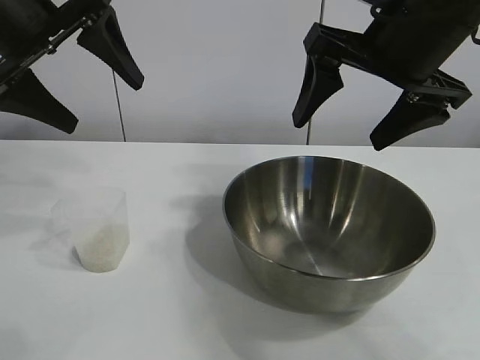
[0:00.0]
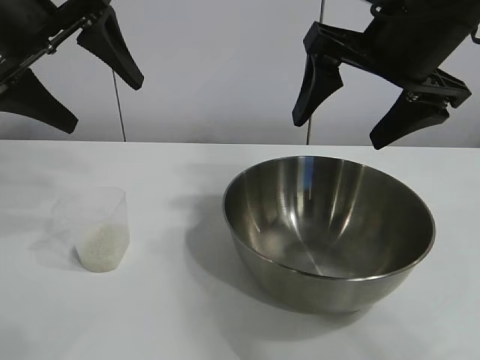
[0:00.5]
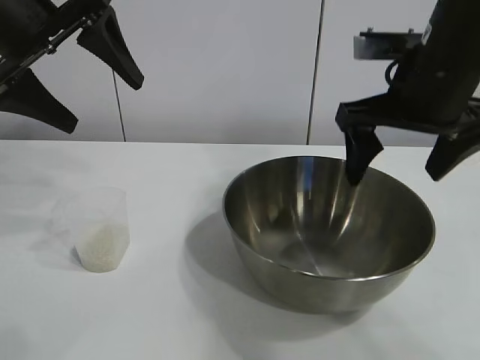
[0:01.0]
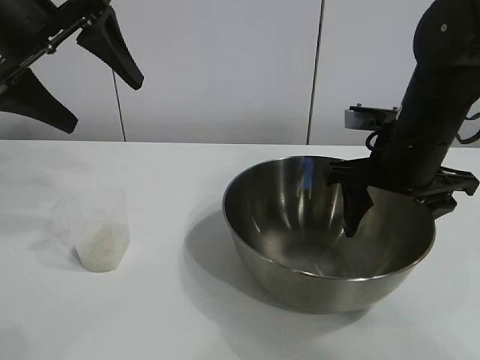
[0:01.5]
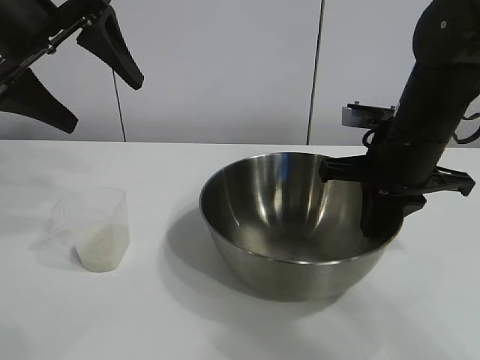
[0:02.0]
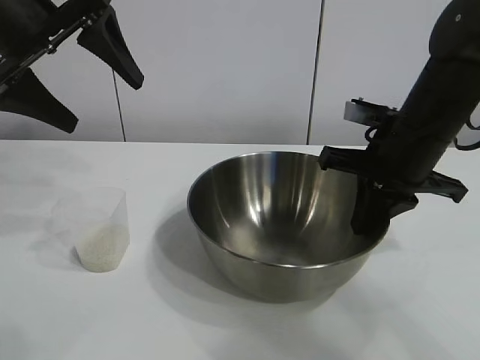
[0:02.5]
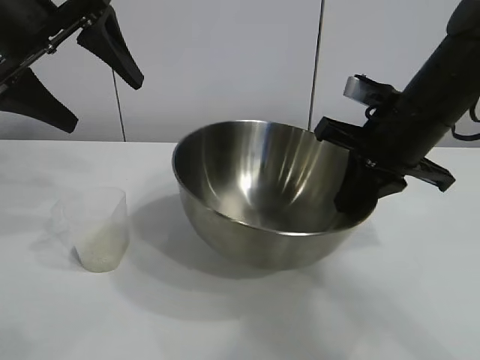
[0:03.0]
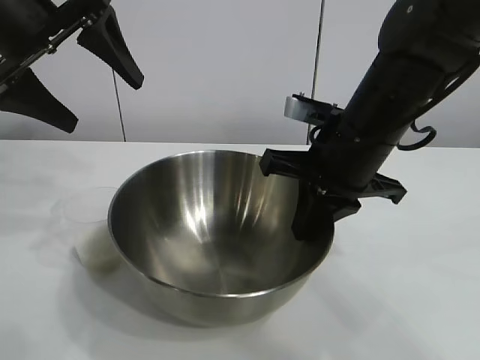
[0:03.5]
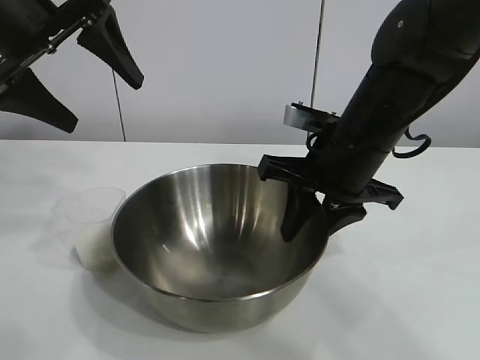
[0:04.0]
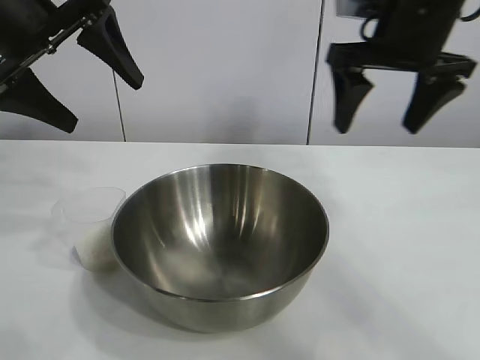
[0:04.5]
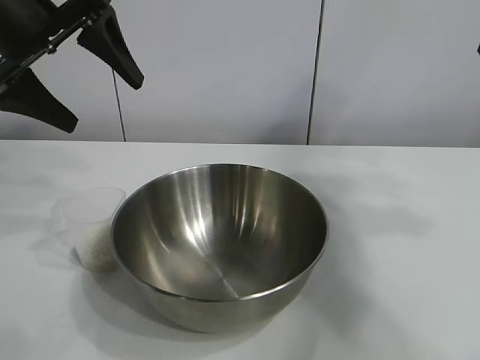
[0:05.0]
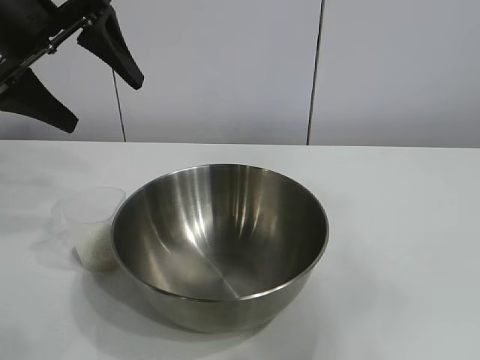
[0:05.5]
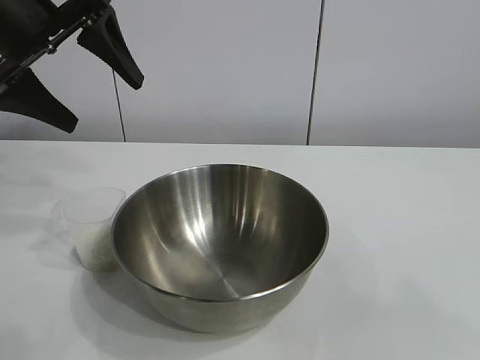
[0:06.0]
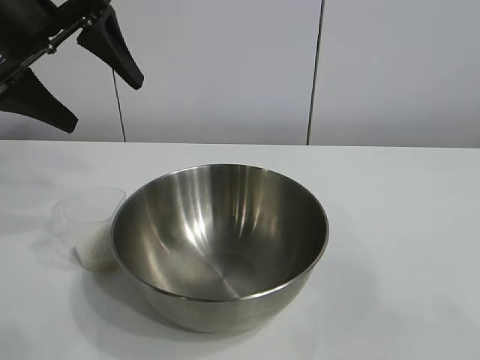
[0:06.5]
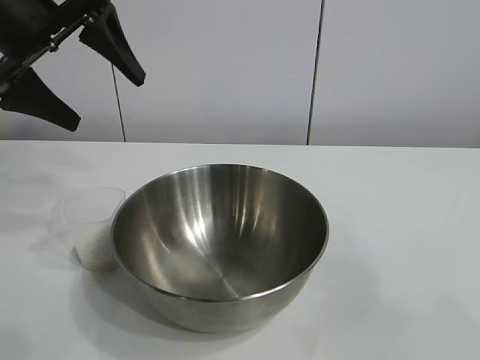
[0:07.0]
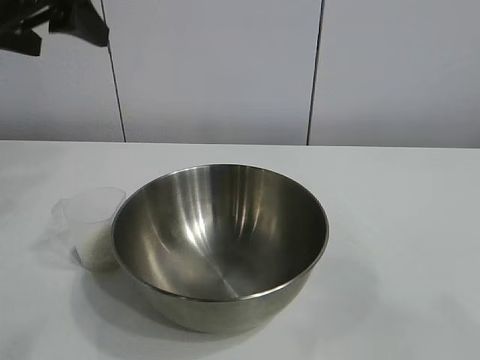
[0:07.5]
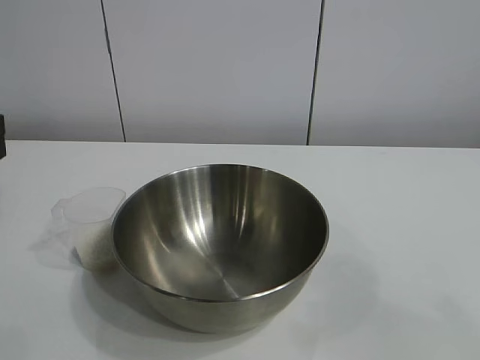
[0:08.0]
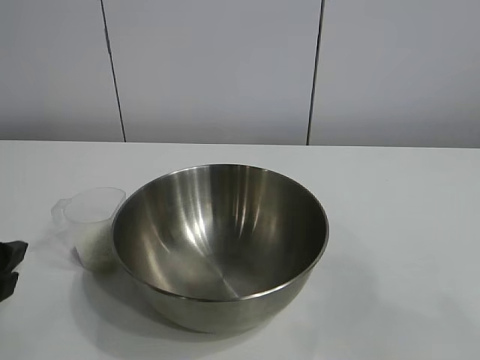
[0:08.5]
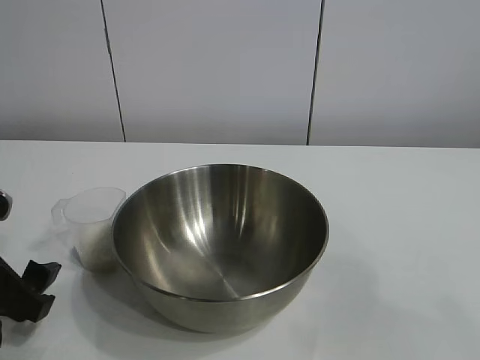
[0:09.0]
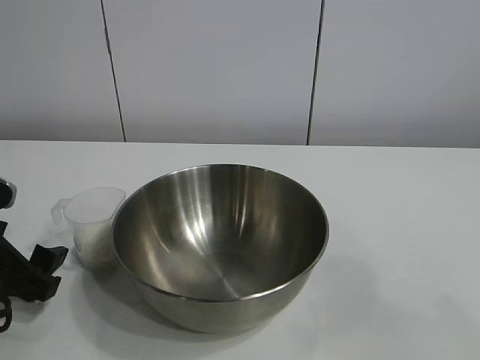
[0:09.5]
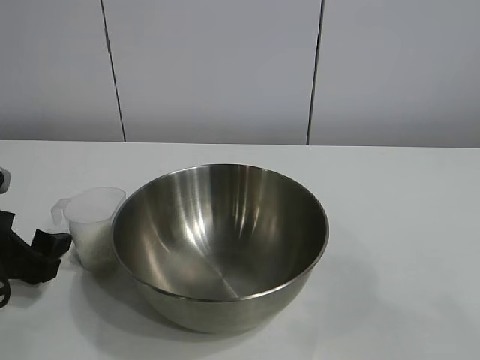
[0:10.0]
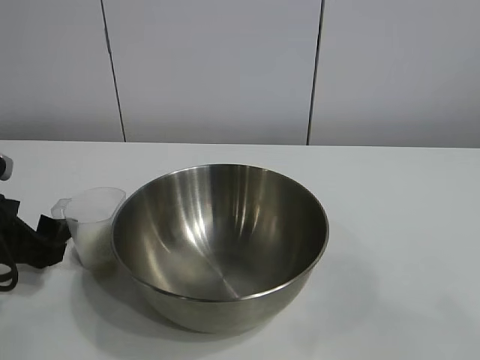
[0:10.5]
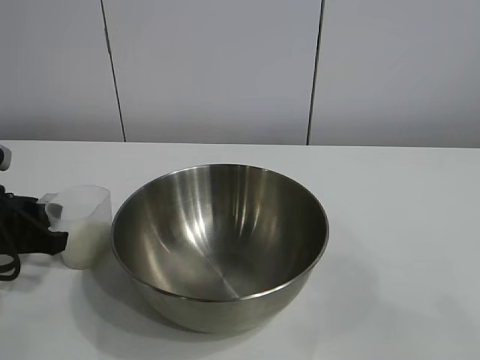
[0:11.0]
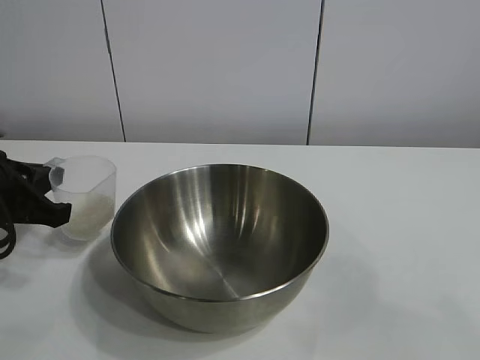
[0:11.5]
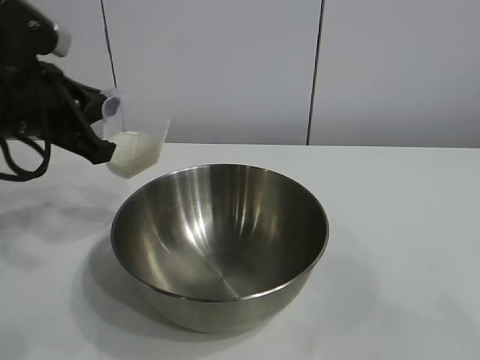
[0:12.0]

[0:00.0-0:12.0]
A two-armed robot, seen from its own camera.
Task of the whole recording: the right gripper grasp the rice container and place it in the center of the table, the left gripper grasp the rice scoop and pour the rice into the rice container.
Step, 0:01.0 to 0:04.0: Move the bowl in the center of view with right gripper.
Step, 0:04.5 to 0:10.5: Grasp the cup with rice in it with left gripper.

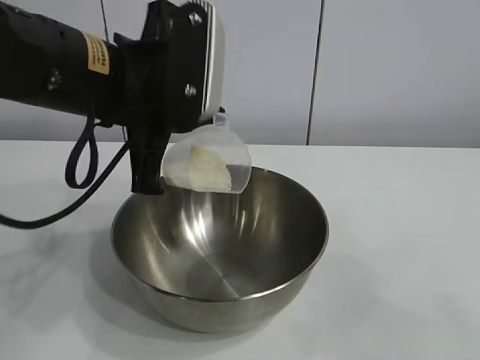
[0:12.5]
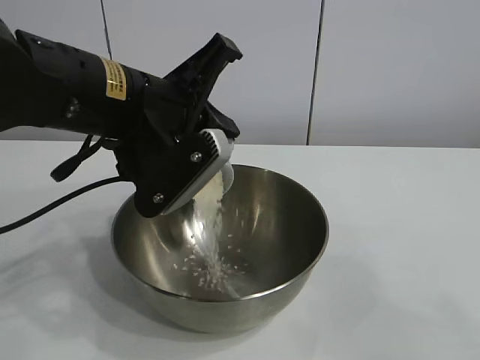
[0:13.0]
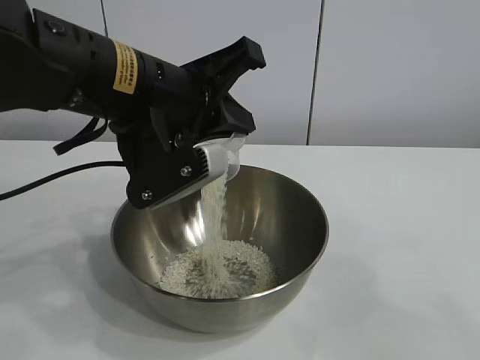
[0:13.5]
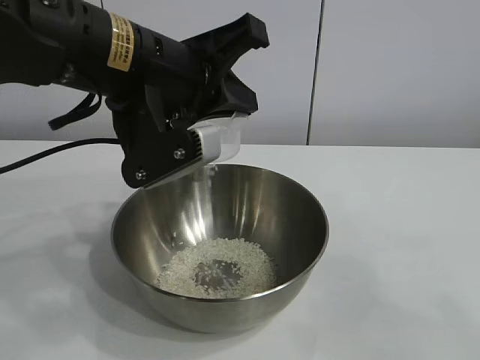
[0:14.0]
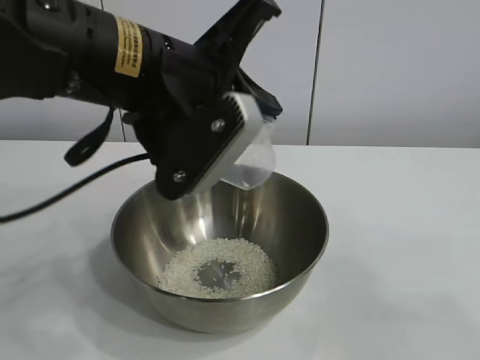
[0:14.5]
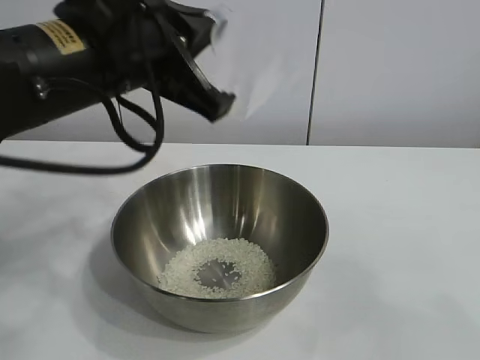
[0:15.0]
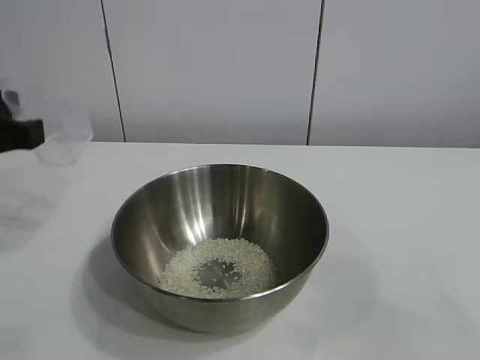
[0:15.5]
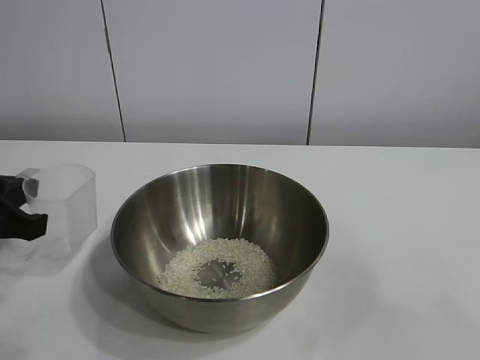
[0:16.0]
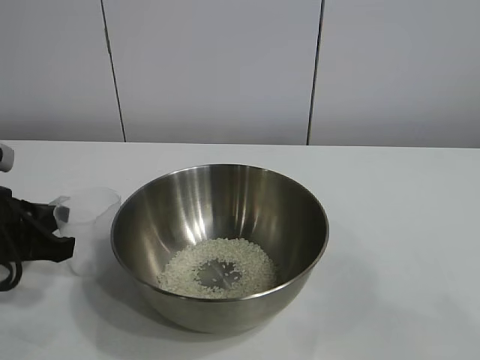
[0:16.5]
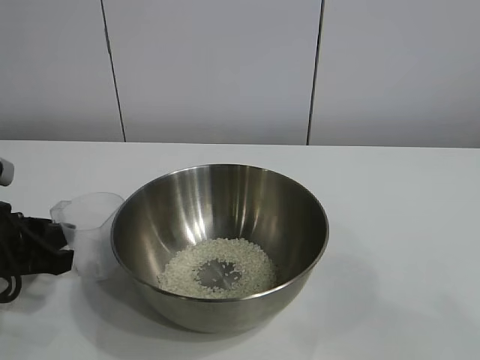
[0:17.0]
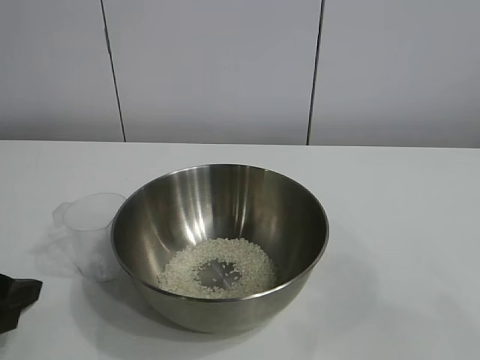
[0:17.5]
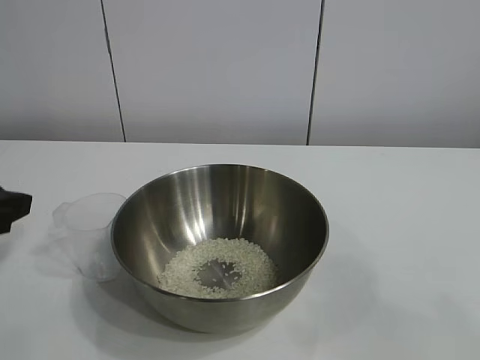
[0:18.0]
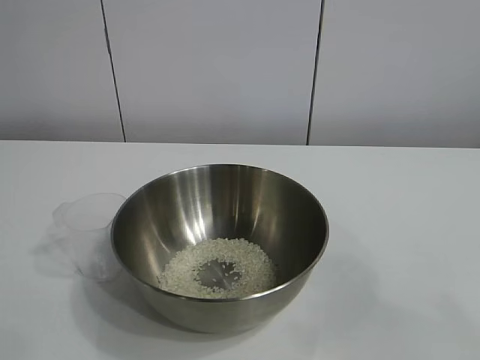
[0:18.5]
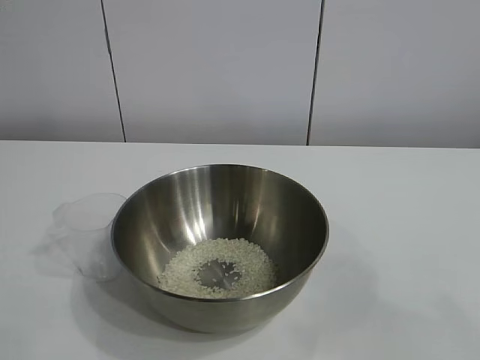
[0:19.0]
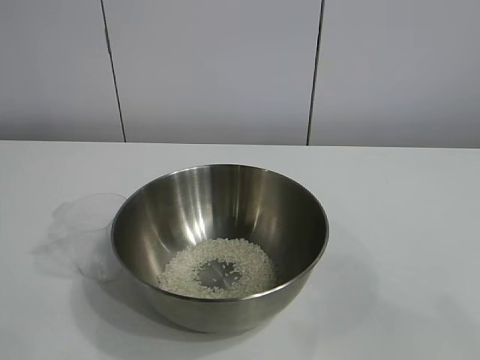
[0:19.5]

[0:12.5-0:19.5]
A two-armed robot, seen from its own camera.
Task of the whole recording: the right gripper grasp the rice container and place it in the center of the table, the left gripper grasp the rice scoop and pour the rice into the rice container.
Step, 0:12.5 to 0:14.0: Pour the rice from the cup into the bowl with the left gripper.
Step, 0:14.5 to 0:17.0: Place the cup on the table with the left gripper.
